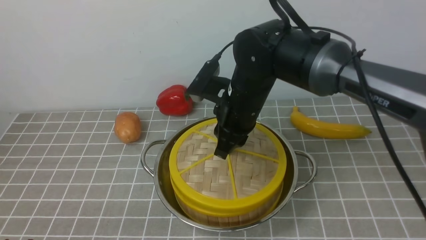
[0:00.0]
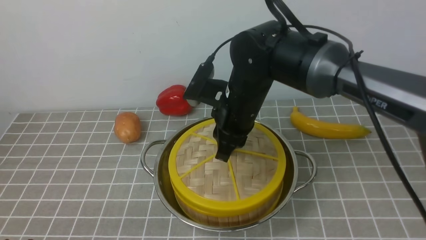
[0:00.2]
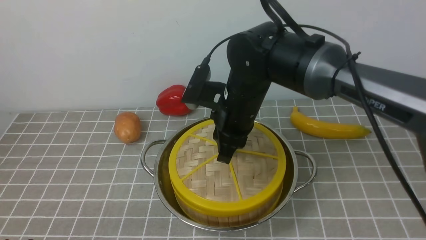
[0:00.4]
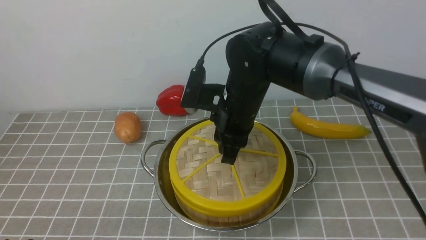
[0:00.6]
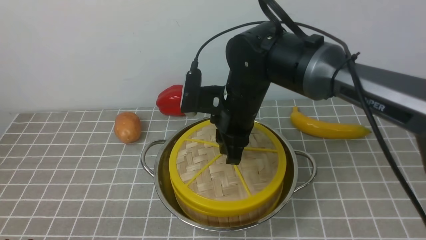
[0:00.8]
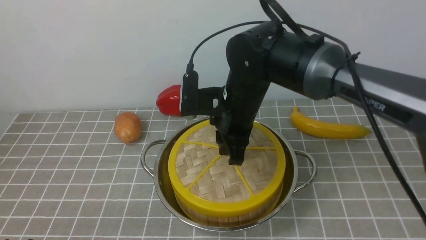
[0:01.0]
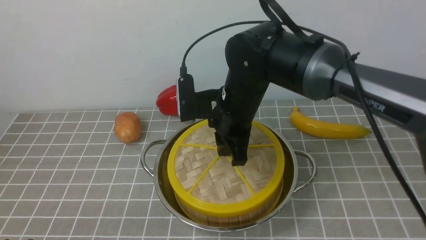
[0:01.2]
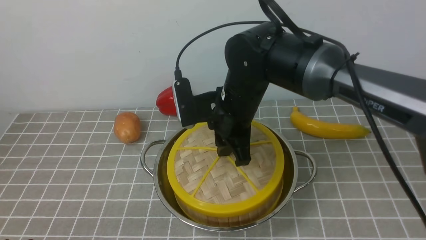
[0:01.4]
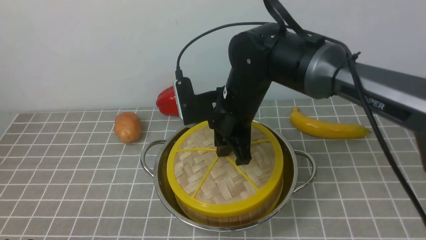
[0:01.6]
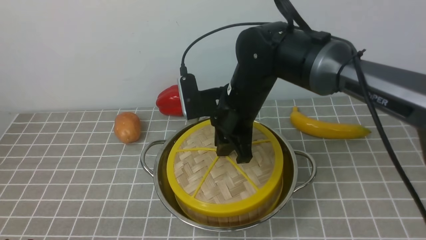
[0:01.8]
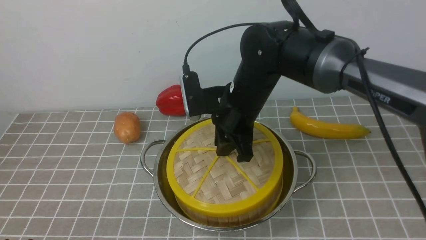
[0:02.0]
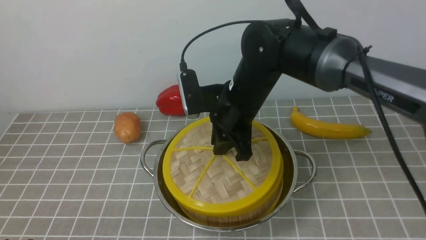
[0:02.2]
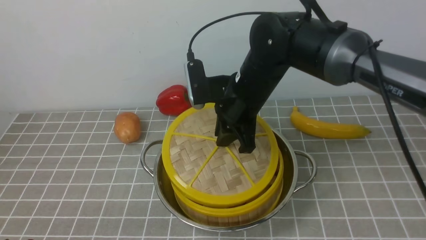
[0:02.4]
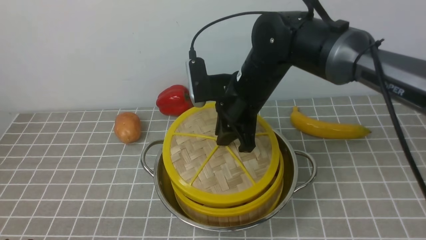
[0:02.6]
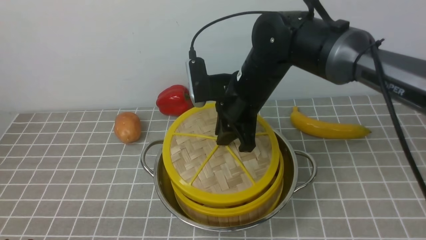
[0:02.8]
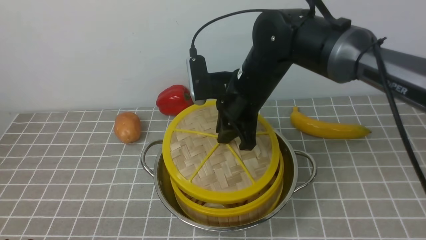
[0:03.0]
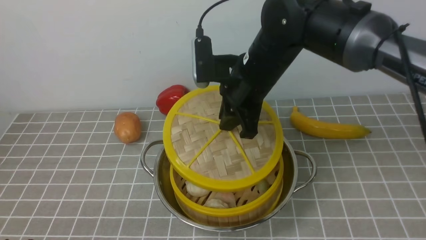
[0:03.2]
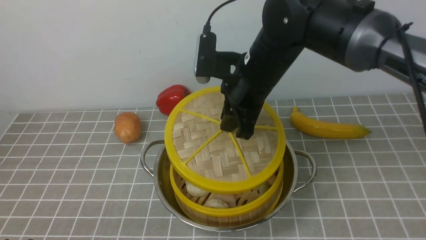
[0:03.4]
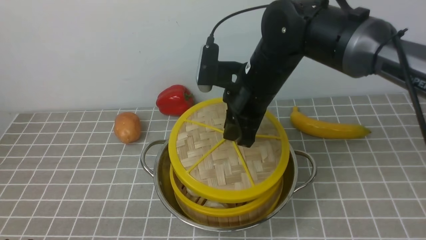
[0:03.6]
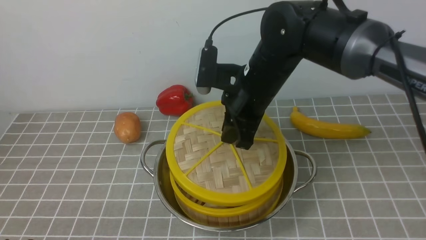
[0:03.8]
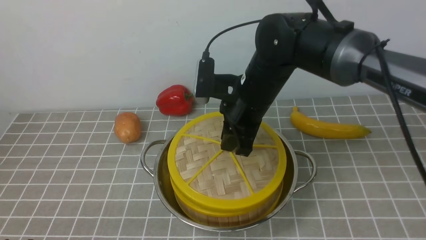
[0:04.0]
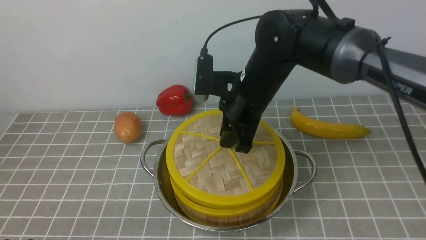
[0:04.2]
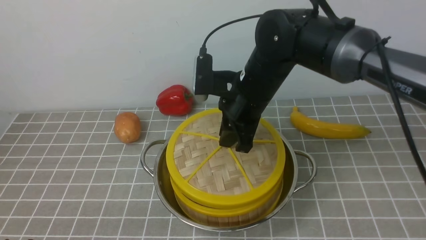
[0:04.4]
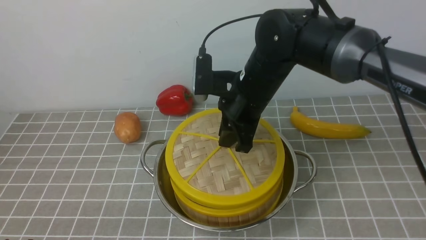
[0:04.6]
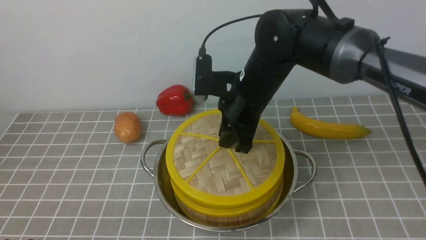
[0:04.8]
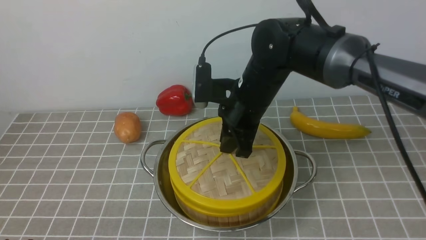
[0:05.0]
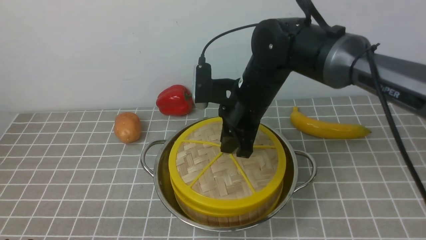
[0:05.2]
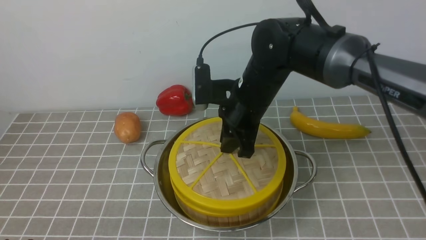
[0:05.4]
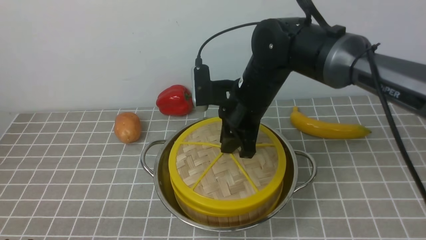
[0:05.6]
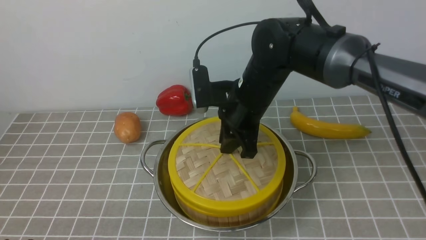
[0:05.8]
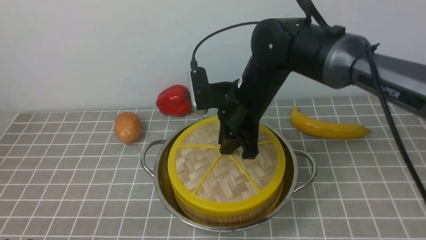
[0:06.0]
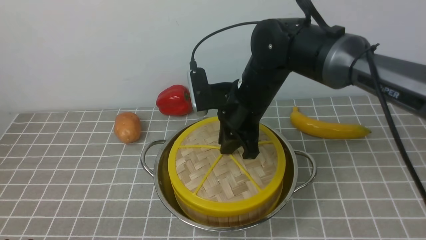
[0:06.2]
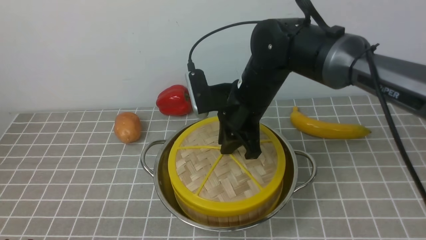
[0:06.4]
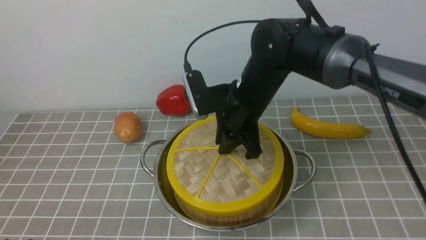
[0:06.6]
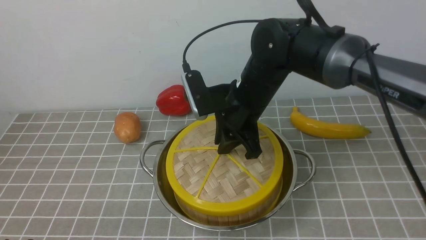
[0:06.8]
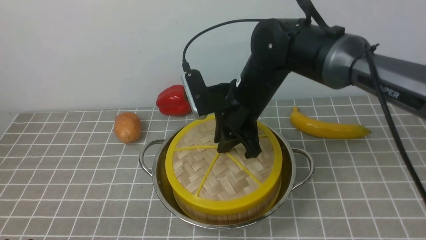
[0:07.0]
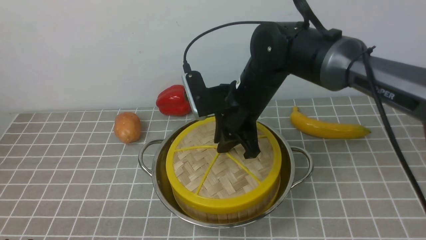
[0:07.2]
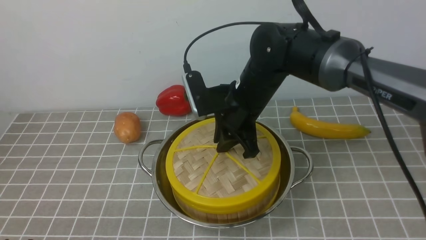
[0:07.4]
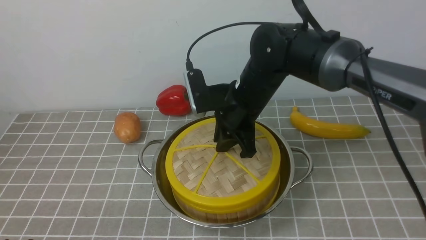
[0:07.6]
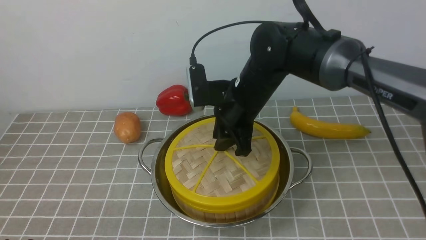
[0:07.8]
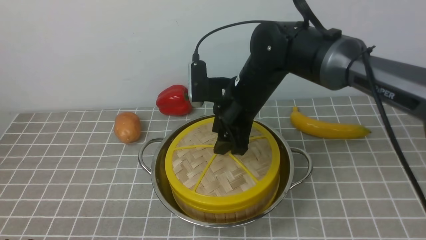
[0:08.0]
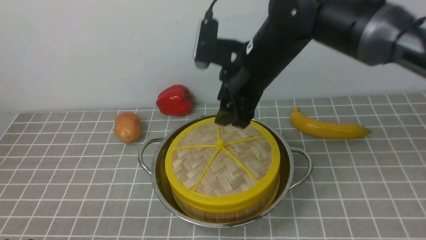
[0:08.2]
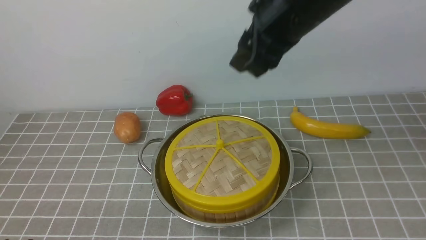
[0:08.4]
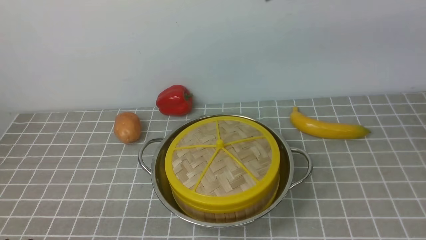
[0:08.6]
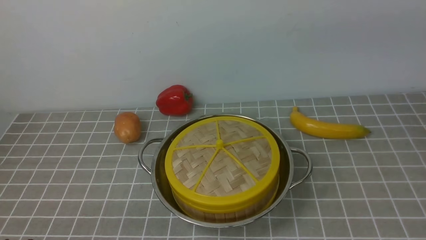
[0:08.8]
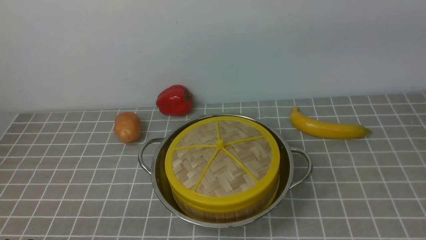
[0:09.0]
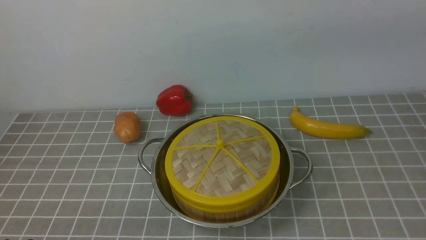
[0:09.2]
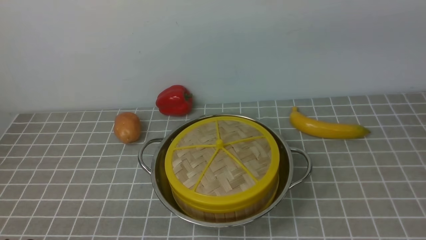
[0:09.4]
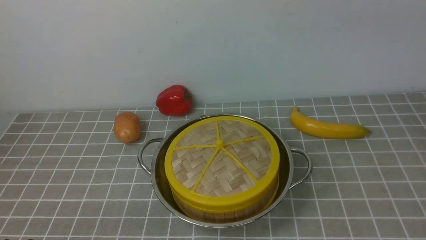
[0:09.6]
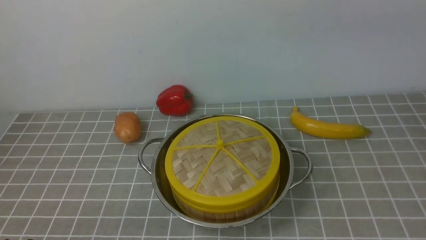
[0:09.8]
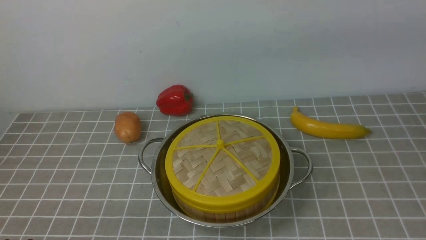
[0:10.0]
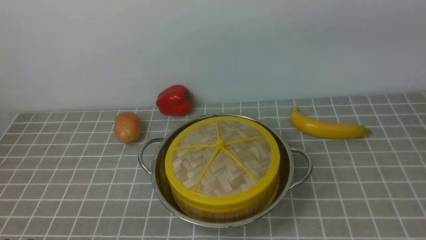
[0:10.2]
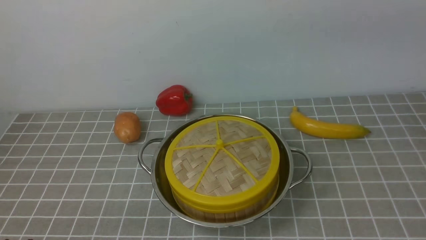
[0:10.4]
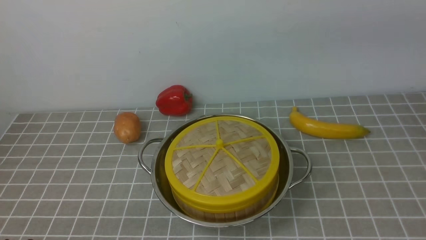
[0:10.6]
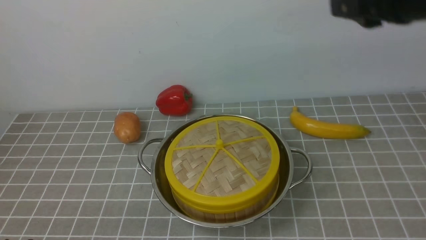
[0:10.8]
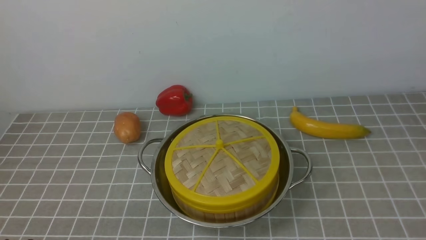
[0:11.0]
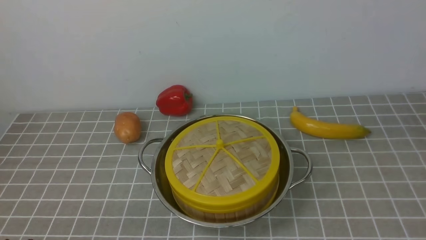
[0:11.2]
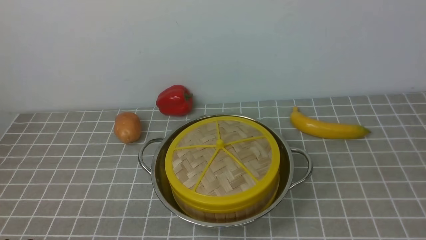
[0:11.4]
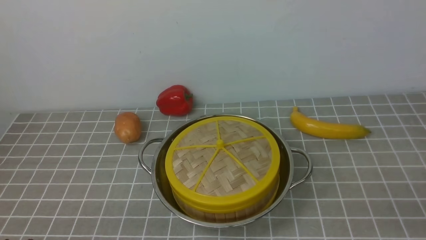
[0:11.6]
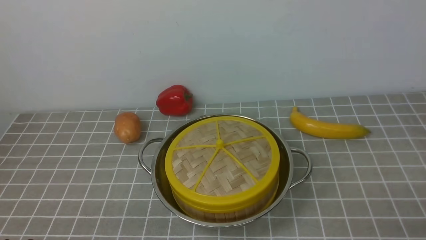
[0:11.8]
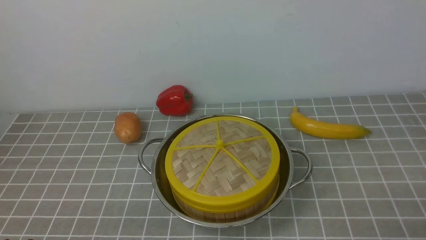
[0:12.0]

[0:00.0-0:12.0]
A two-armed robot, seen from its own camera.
Task of the whole recording: place the steamer in the pot on the grey tablecloth, and put the lid on the steamer.
Step, 0:00.0 to 0:08.0: use the right arm to place the steamer lid on the steamer.
0:01.6 to 0:06.0: The grippers move only a little.
0:06.0 to 0:07.6: The right gripper opens.
0:07.6 to 0:09.0: The right gripper goes roughly 30 cm upward and backward, and opens, then closes again.

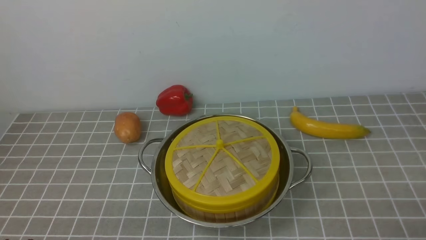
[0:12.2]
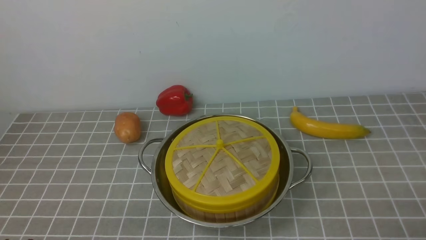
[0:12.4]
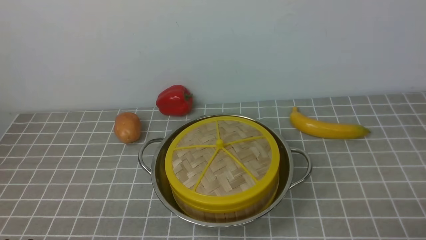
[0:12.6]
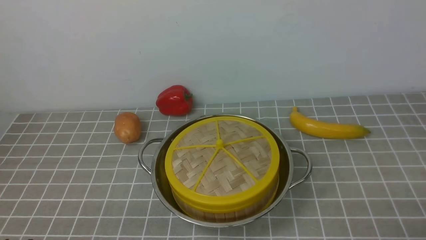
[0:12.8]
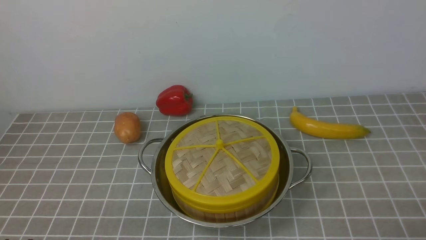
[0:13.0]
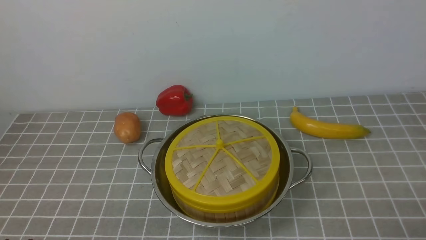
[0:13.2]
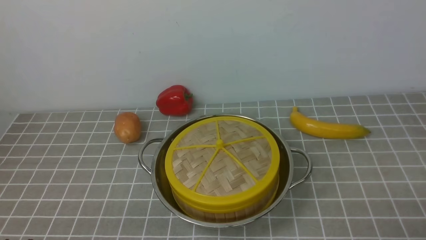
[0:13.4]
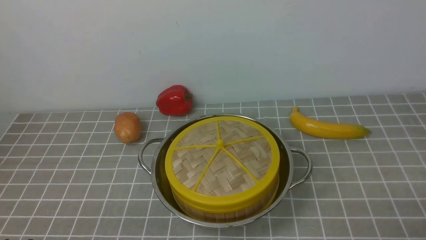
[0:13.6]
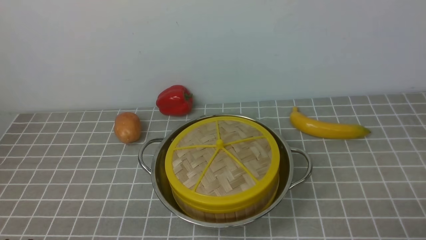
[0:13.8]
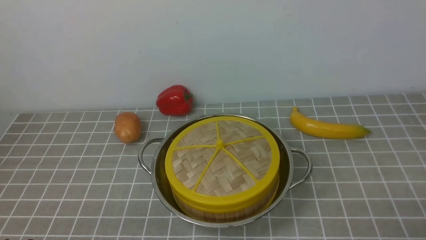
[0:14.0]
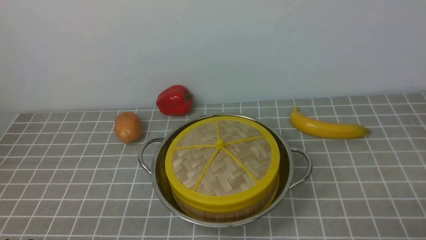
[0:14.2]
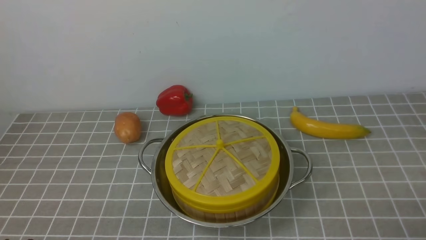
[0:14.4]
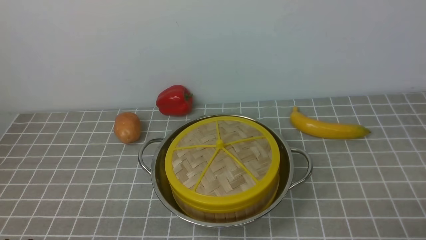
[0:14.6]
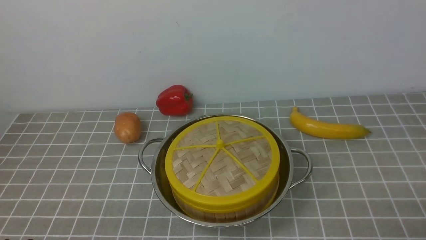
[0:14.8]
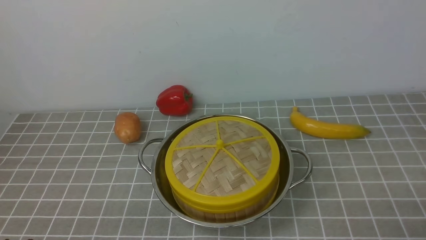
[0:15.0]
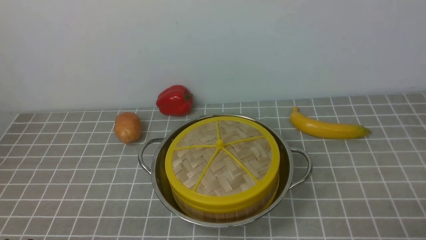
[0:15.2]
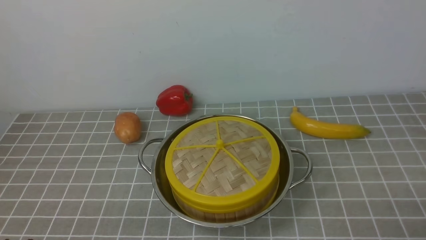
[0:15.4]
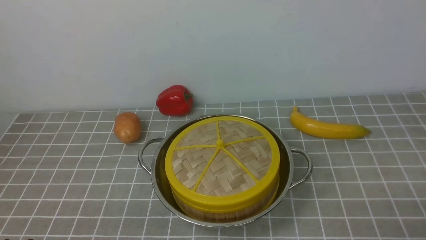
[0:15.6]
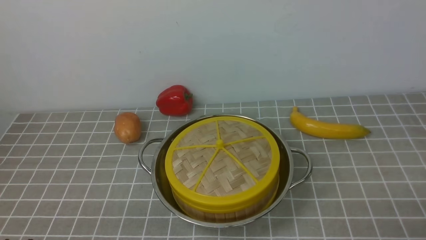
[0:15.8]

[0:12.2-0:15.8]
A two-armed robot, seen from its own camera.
Task of the whole recording: place the steamer in the pot on the grey tablecloth, and put the lid on the steamer.
0:14.0 to 0:15.8: Both grippers stay about where they are.

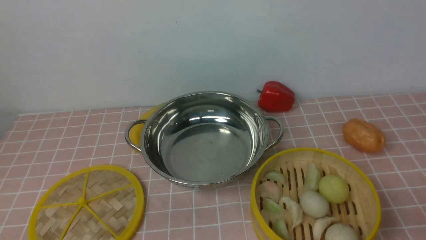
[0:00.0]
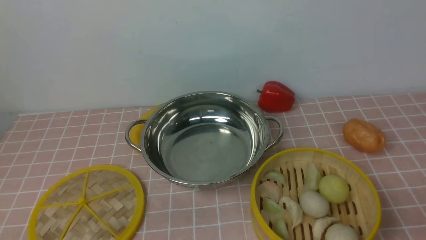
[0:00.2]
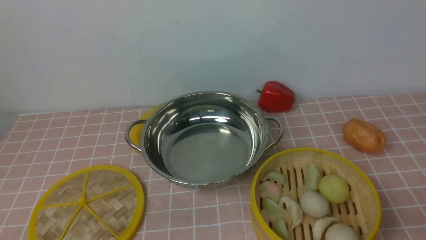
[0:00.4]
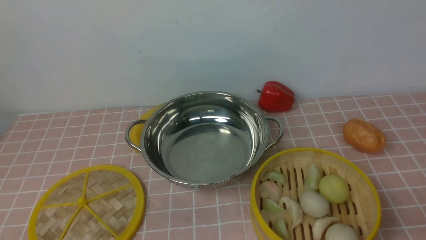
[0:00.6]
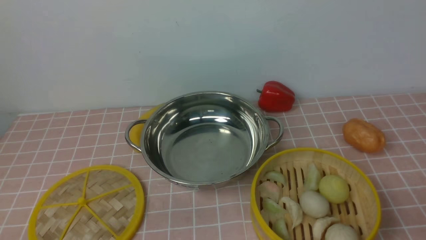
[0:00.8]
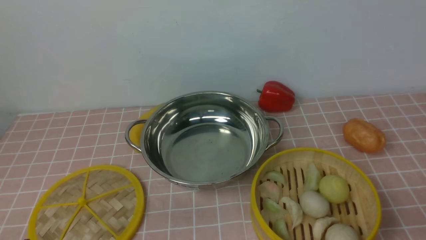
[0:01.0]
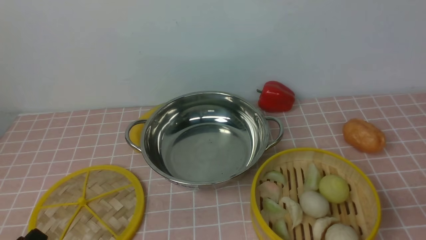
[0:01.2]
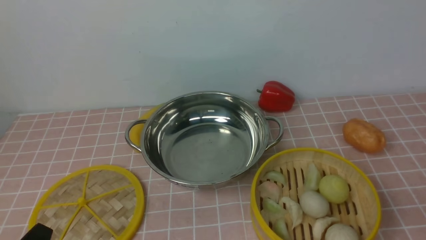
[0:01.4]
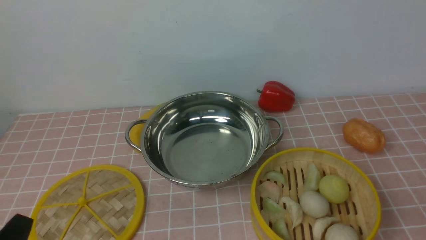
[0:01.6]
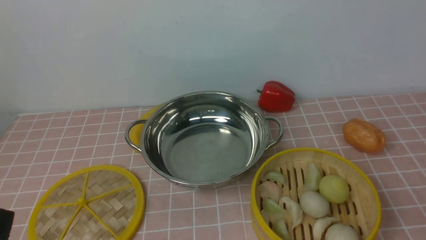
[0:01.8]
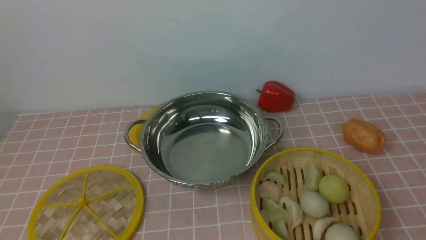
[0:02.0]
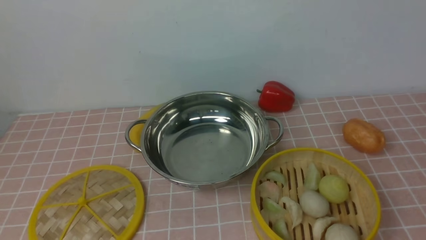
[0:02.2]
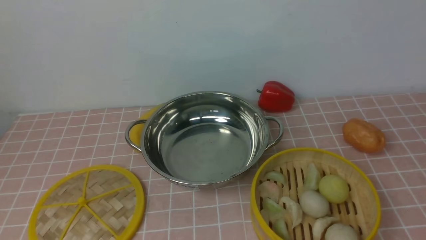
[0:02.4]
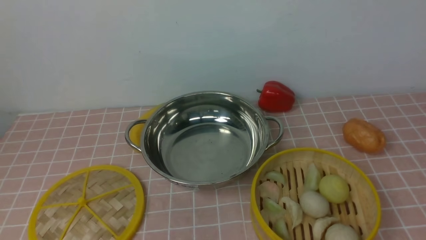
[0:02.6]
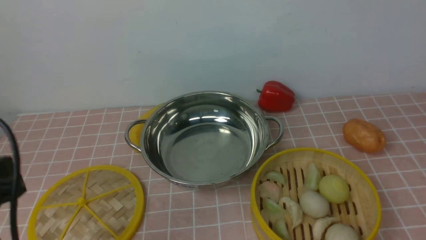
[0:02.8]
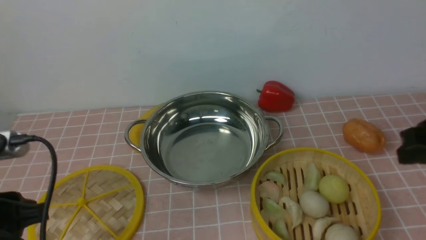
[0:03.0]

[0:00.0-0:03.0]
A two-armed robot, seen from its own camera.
Task of the whole recording: place the steamer in the pot on the pink tablecloth, and put the lid on the steamer.
0:01.6 to 0:03.0: The left gripper travels forward and upward by approximately 10 cm. The right gripper is displaced forward by about 20 cm.
